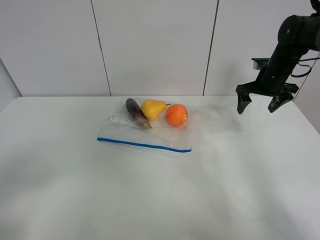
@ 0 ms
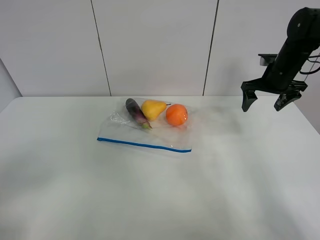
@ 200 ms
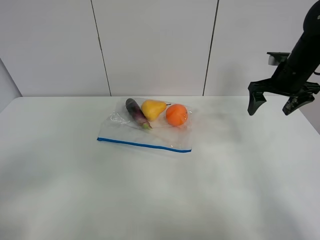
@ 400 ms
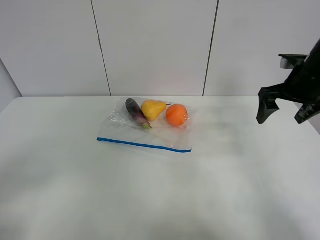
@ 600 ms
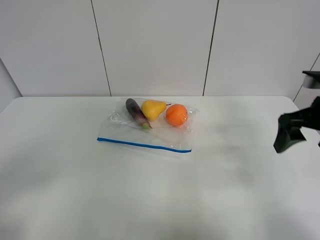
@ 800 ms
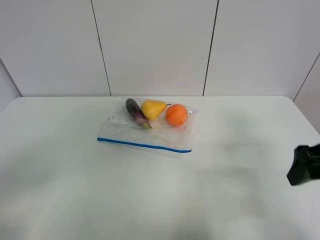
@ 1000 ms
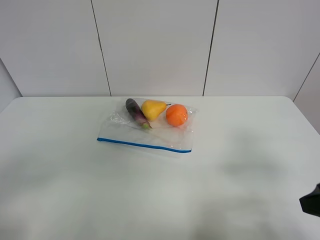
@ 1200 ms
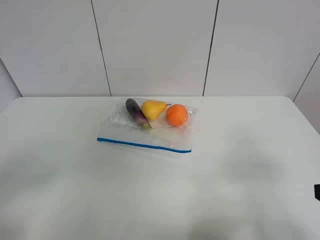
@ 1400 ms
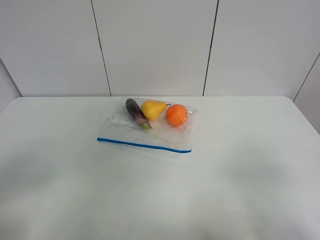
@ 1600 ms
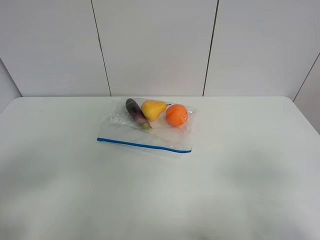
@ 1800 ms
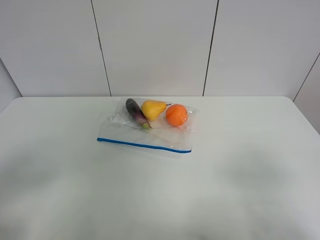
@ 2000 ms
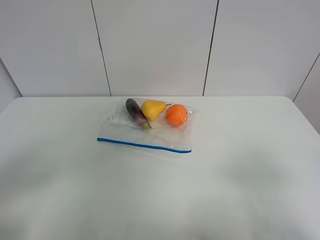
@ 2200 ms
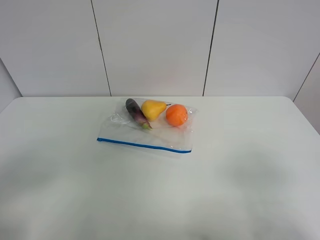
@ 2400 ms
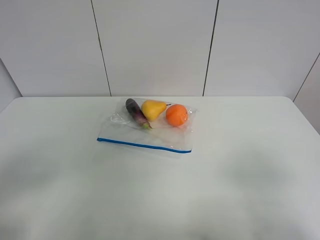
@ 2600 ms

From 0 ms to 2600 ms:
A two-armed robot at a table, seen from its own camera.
From 0 ms to 1200 ms: The right gripper travels backward by roughly 35 cm.
